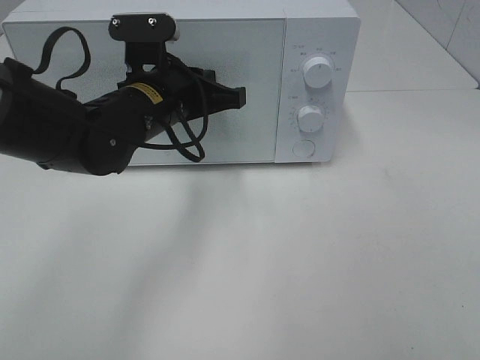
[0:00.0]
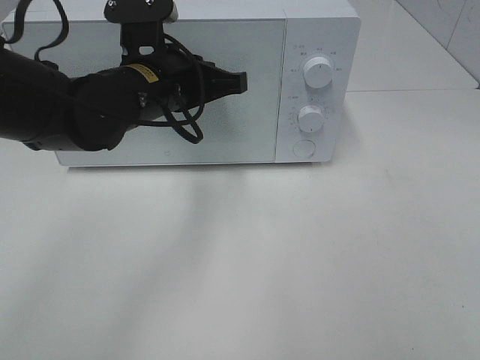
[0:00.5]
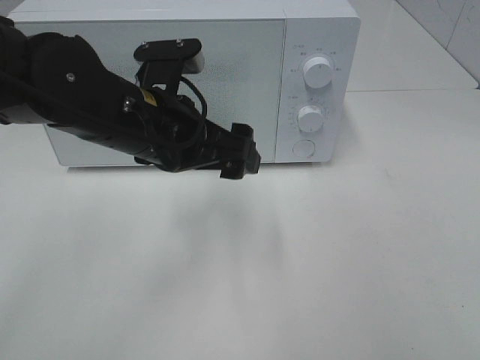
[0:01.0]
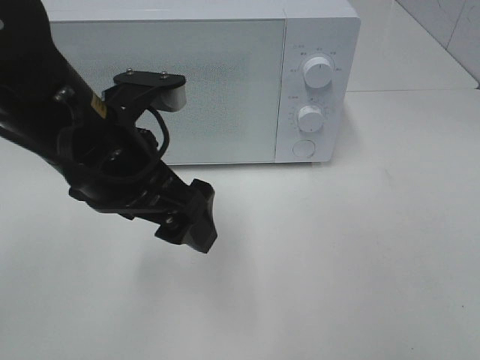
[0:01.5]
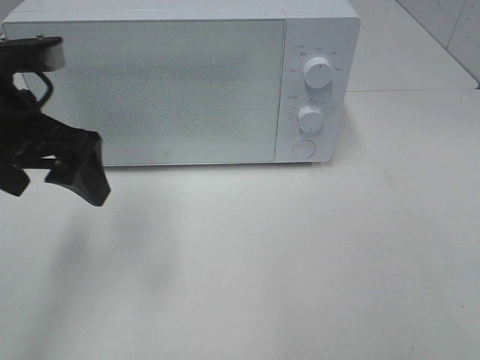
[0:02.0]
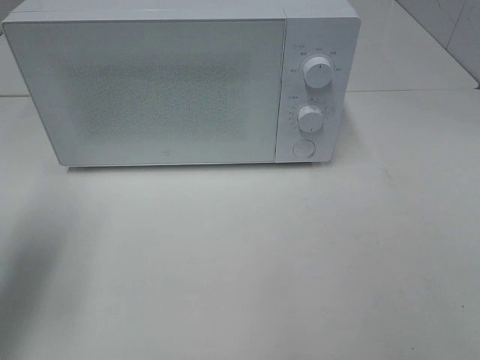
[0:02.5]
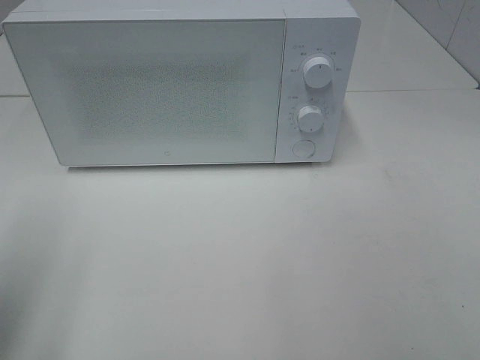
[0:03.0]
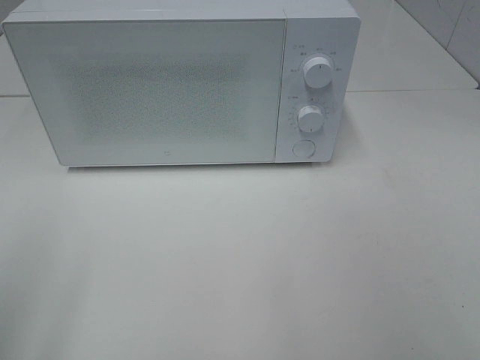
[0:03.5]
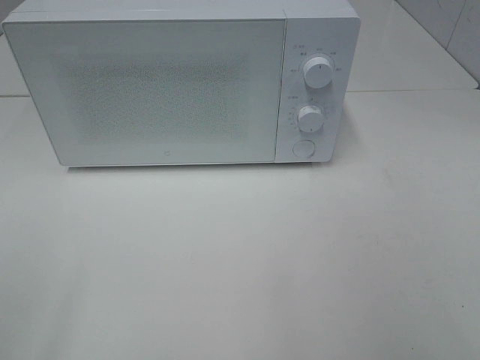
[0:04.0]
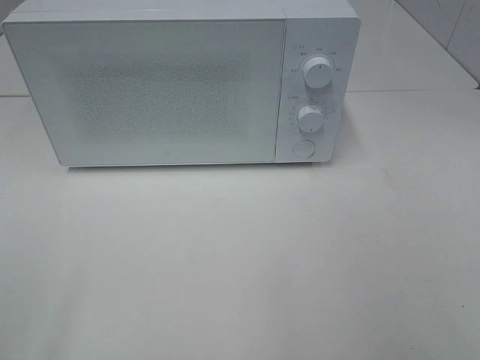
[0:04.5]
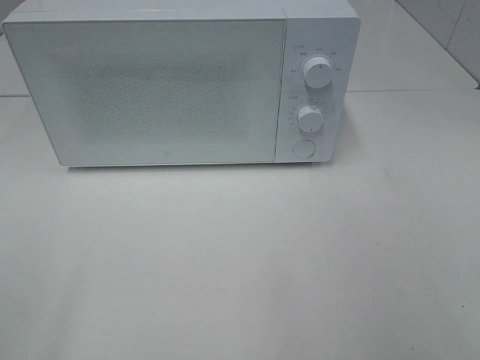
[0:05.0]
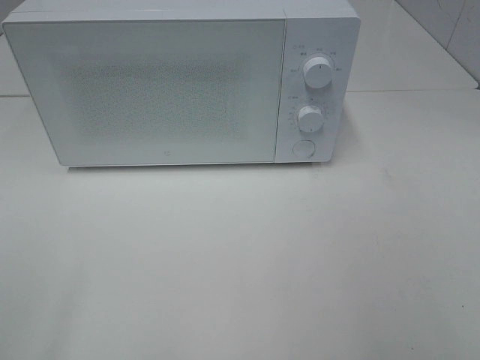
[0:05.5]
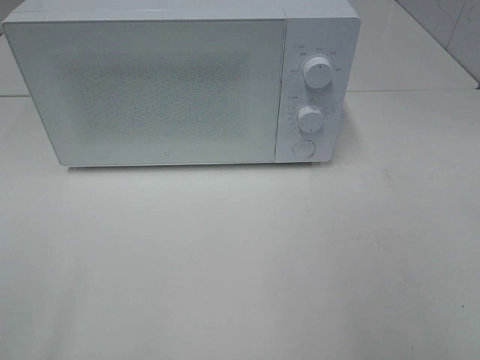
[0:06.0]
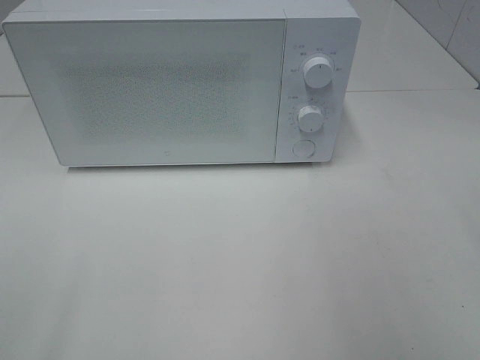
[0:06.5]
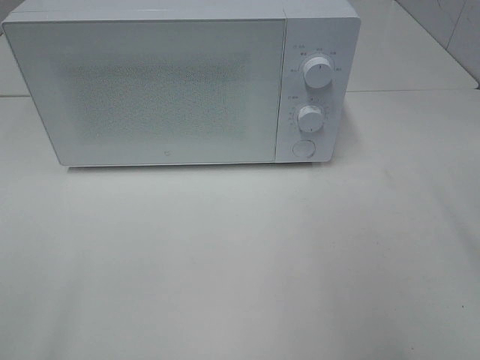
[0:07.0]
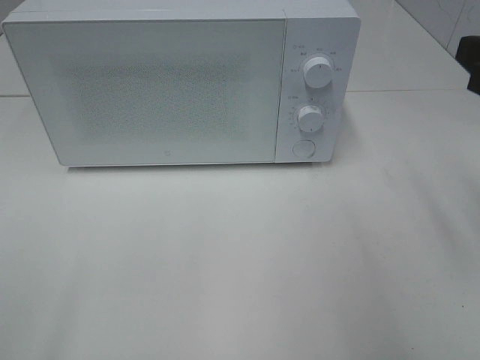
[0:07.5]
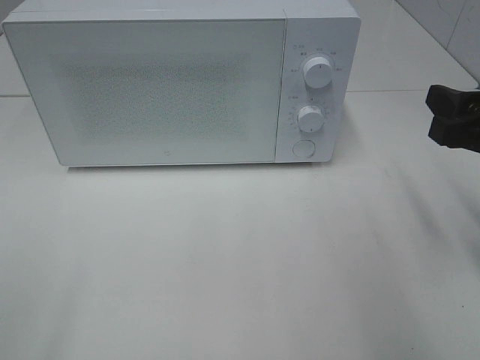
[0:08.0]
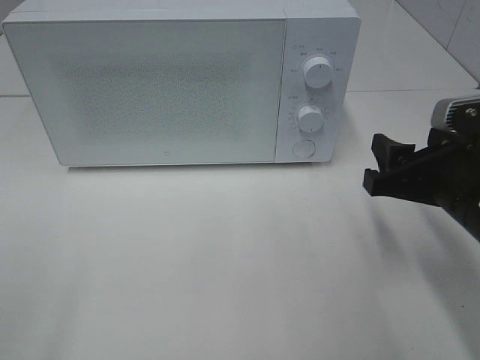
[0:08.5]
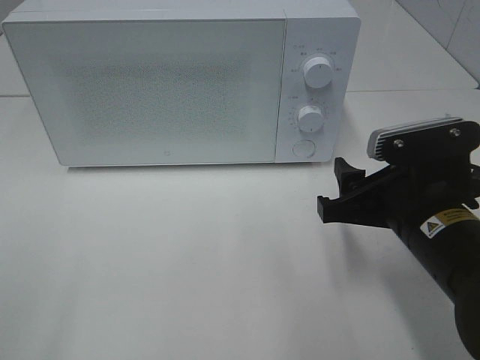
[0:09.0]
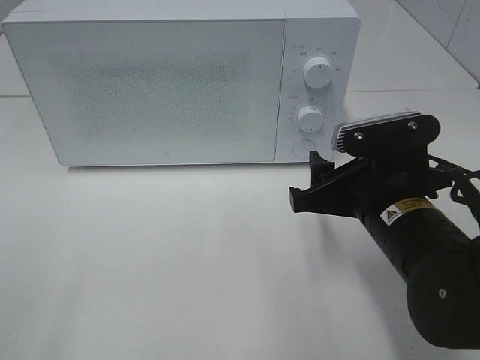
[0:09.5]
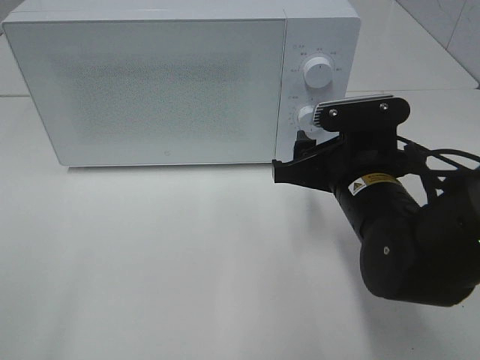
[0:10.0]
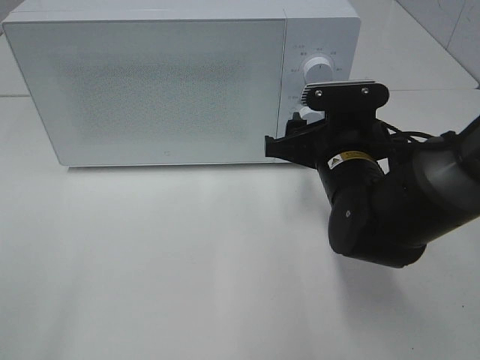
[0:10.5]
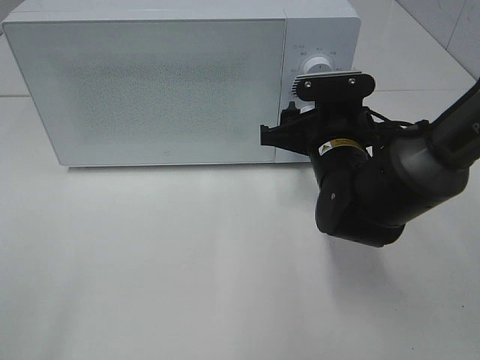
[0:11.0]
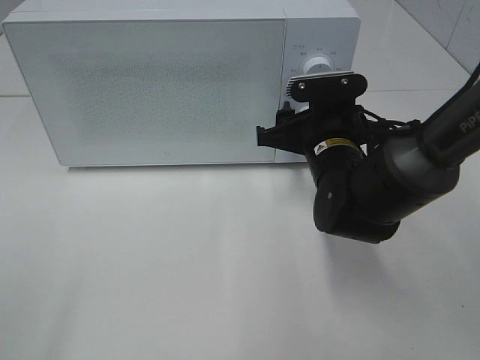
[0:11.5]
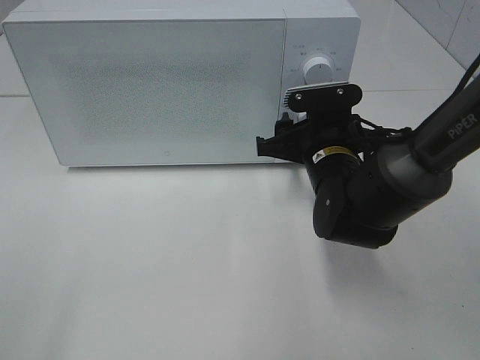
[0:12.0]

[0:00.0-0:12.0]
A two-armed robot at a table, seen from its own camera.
Task of the whole recording: Heat the burger.
0:00.0 to 0:02.0: The left gripper travels to the left, backward and upward by roughly 15 cm, and opens its fingers.
0:02.0 to 0:04.0: The left gripper is displaced backward and to the left by about 30 cm.
0:06.0 to 0:08.0: The right gripper shifts about 15 cm forward and downward.
0:08.0 to 0:10.0: The right gripper goes roughly 15 cm to the left and downward.
0:10.0 to 0:12.0: The right gripper goes roughly 5 cm forward.

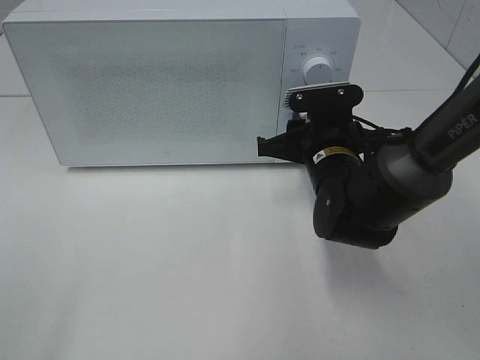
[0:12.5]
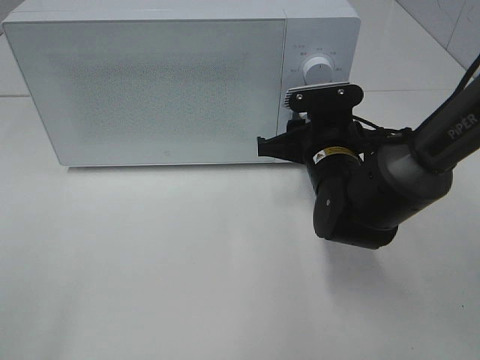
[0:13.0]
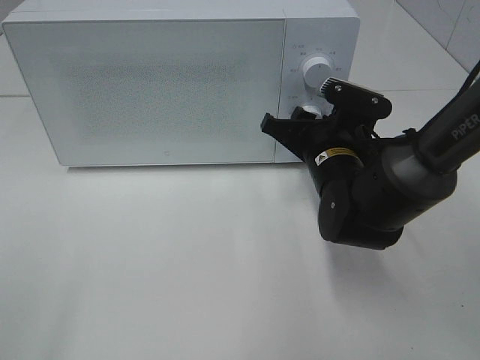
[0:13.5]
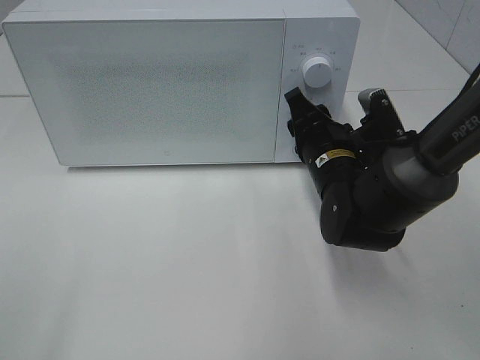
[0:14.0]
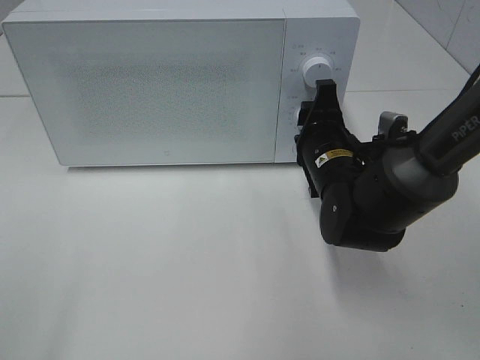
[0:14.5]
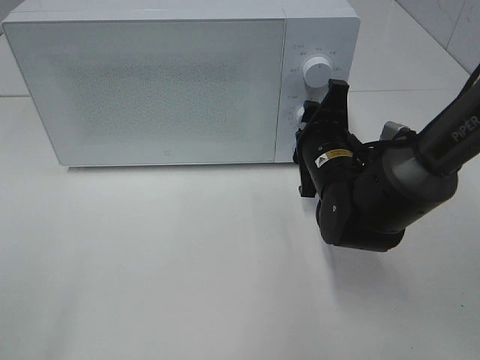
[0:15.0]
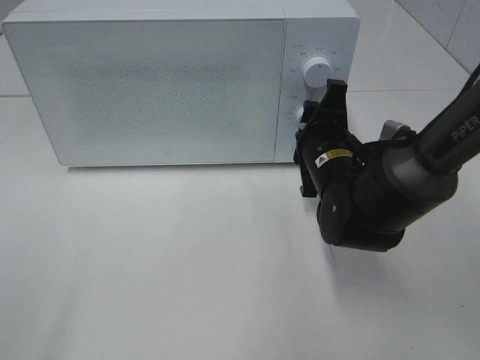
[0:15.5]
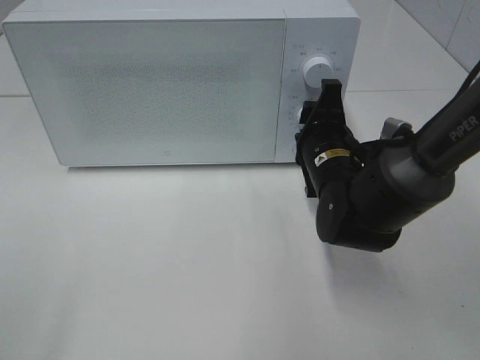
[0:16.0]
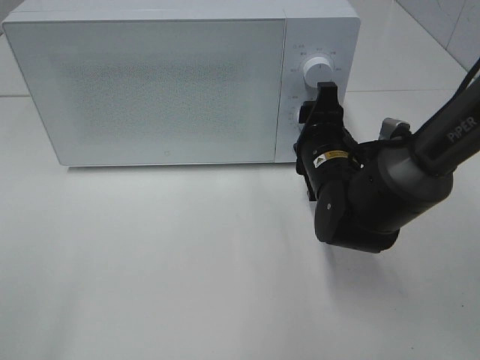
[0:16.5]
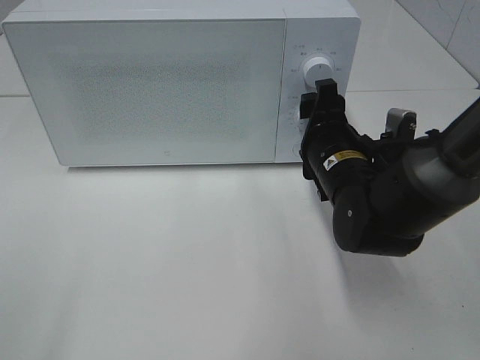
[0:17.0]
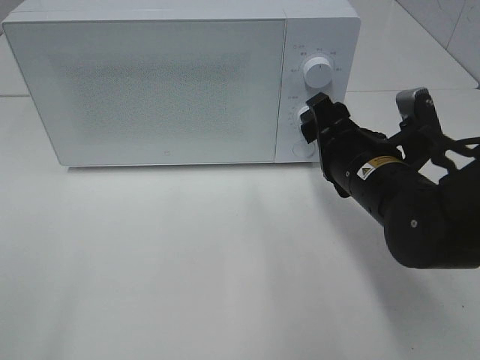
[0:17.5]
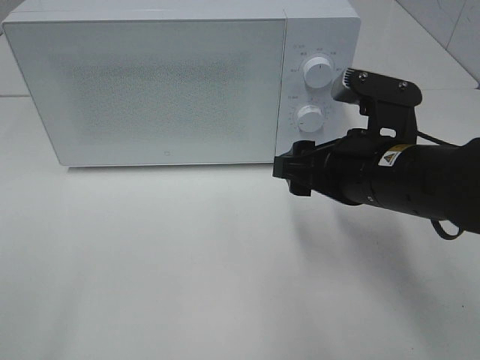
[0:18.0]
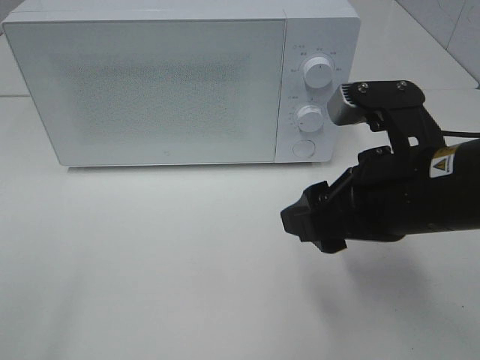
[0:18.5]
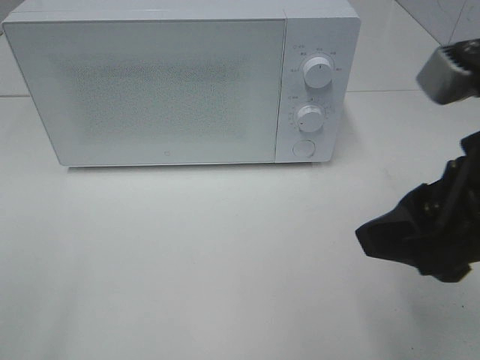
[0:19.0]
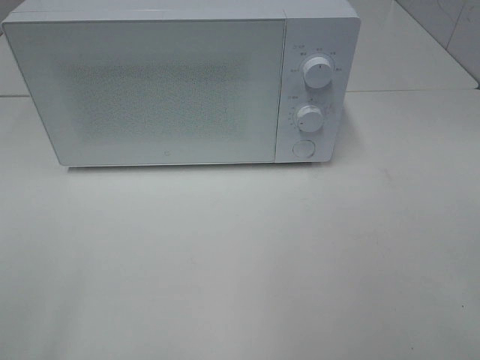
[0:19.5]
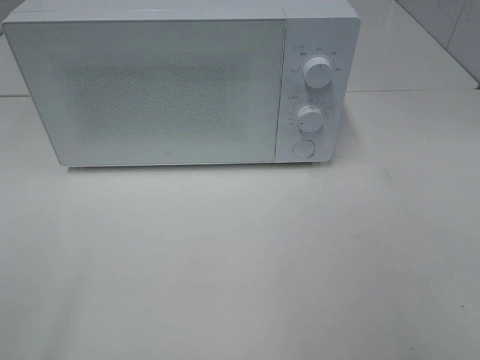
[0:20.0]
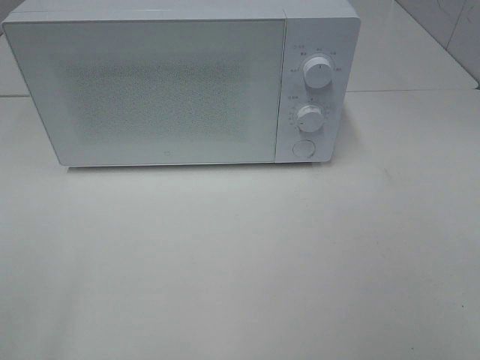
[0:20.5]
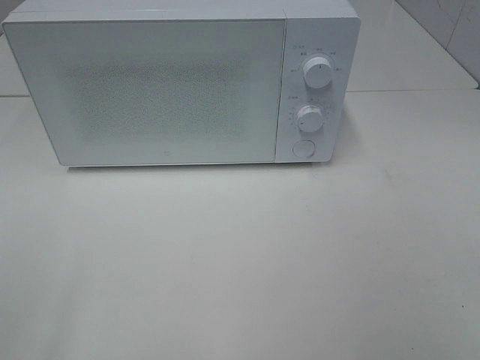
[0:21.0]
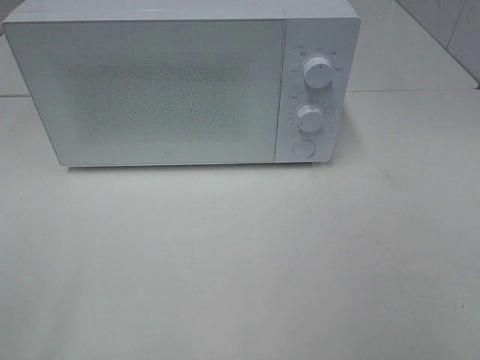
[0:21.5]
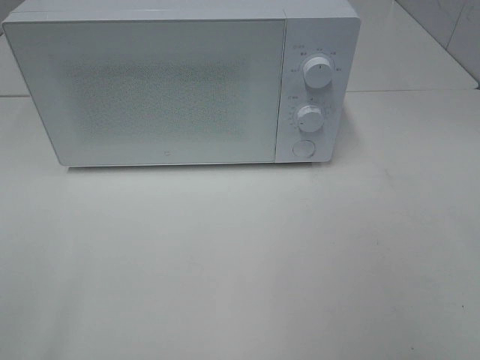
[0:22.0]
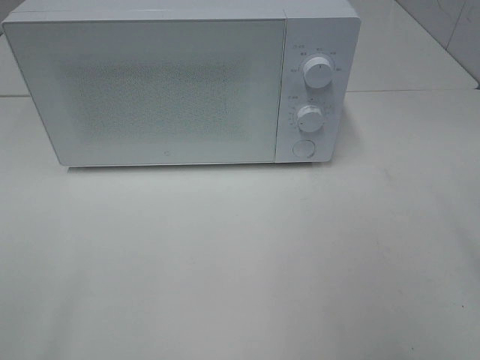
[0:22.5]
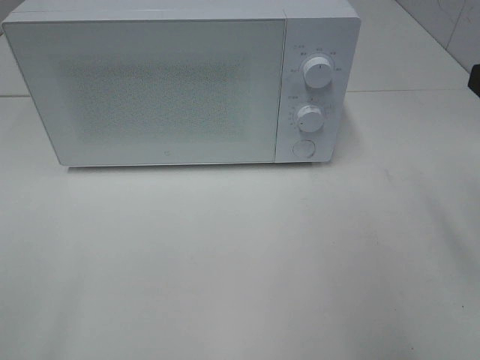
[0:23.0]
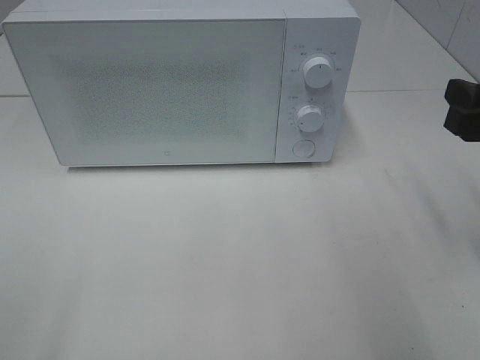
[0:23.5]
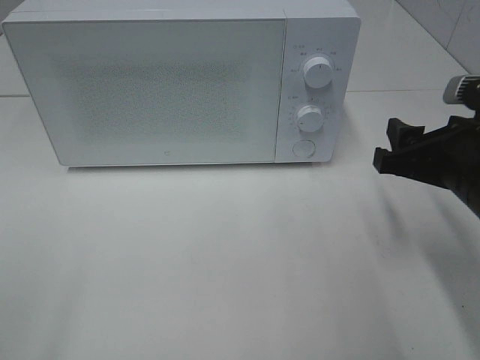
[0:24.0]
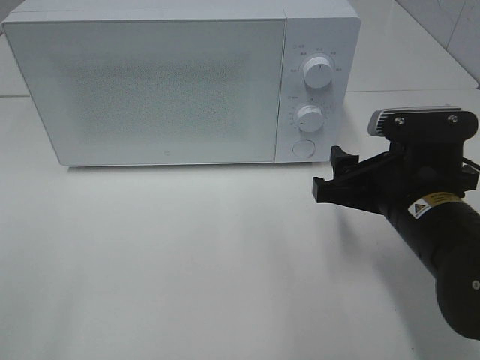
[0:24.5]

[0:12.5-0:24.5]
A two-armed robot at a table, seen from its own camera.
Task of the whole recording: Heat the burger.
Step, 0:12.5 to 0:16.5: Right hand: twist timer button.
0:14.5 to 0:16.5: The grippers move only a little.
0:16.5 to 0:18.5: The right gripper travels backward and upward by some 15 cm.
0:18.5 to 0:20.5: The right gripper goes approximately 25 cm backward and to the right.
0:22.5 to 0:24.5: The right gripper heads downward, to the left and forward, covering approximately 20 cm.

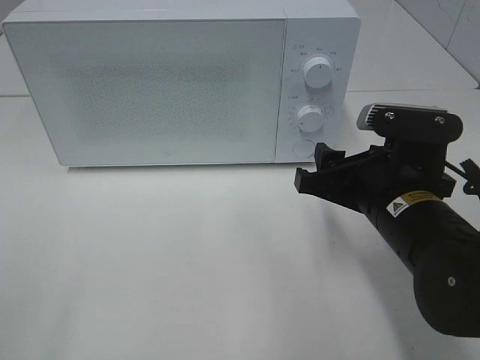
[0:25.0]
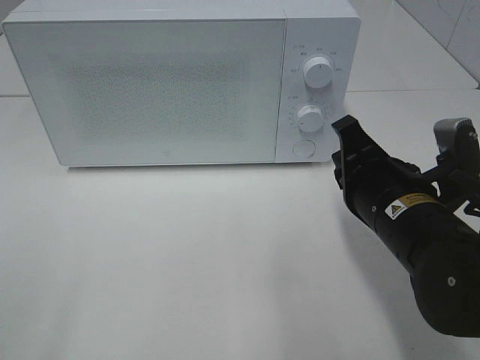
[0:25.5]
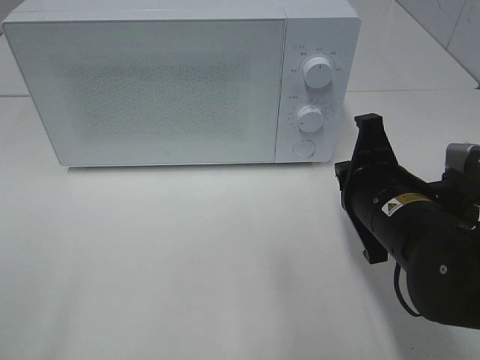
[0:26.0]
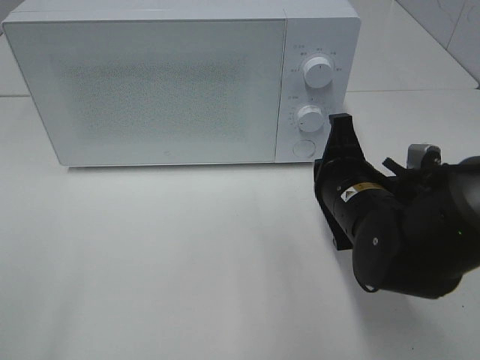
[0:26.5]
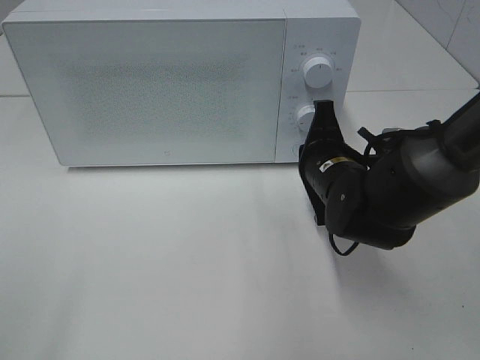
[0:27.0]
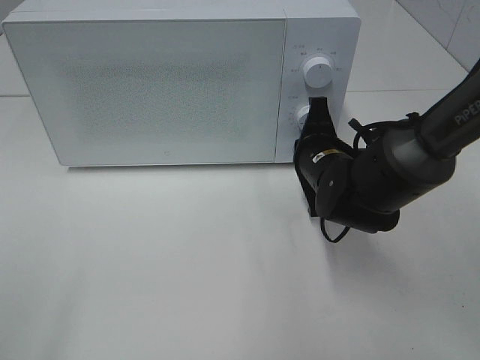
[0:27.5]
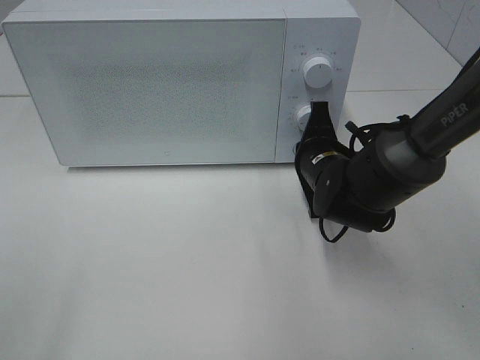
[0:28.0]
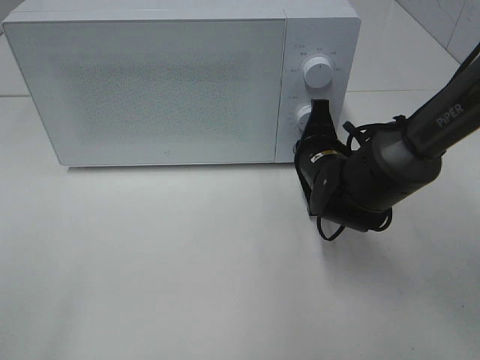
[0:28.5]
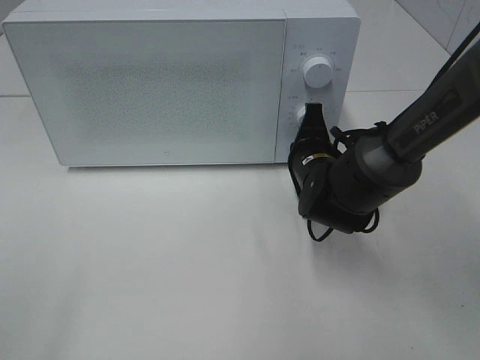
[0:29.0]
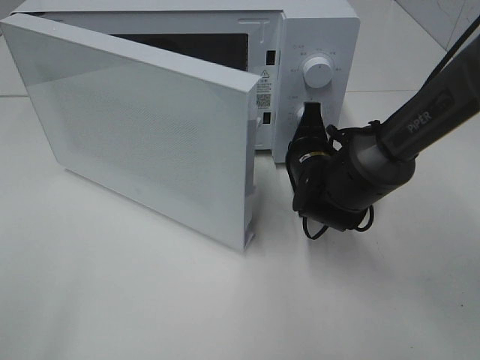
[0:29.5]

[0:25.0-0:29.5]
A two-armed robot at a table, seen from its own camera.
Task of the whole recording: Heat the burger.
0:25.0 to 0:27.0: The right gripper shifts roughly 10 cm forward, and closes.
0:27.0 to 0:29.5: The right gripper ends up some 5 cm from where it was.
